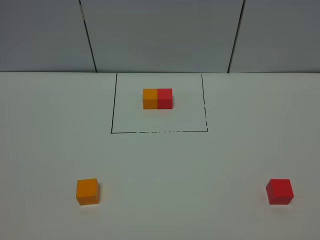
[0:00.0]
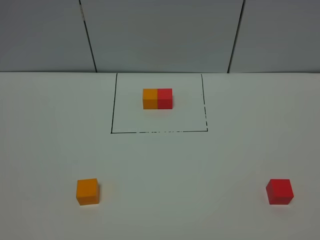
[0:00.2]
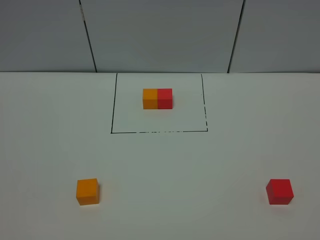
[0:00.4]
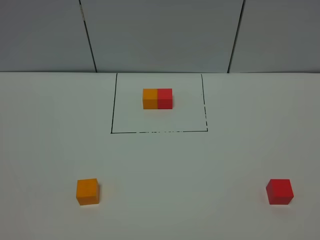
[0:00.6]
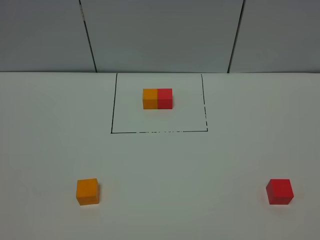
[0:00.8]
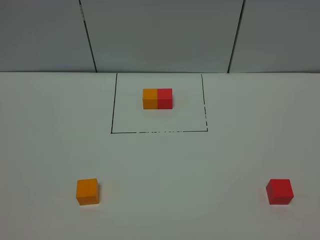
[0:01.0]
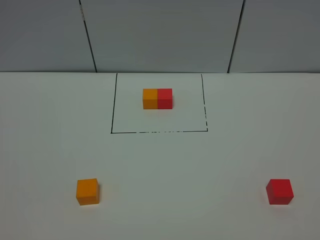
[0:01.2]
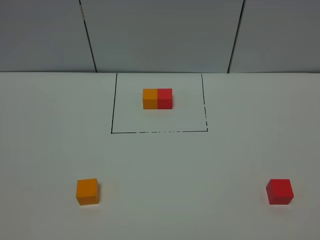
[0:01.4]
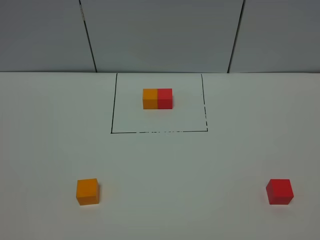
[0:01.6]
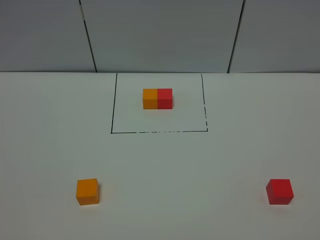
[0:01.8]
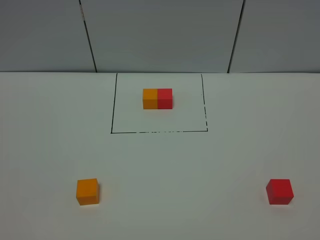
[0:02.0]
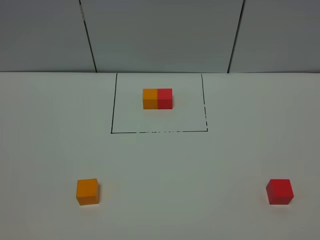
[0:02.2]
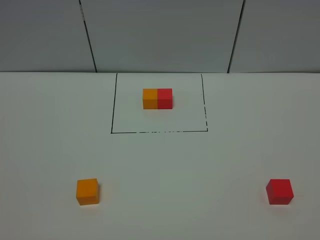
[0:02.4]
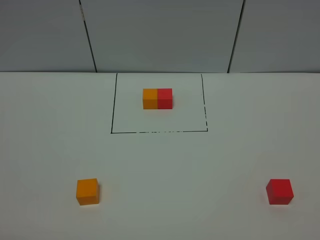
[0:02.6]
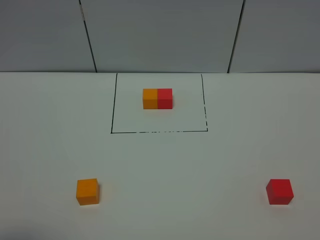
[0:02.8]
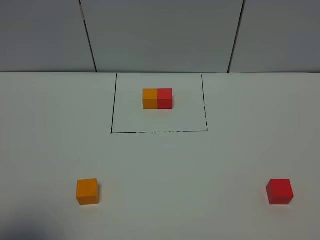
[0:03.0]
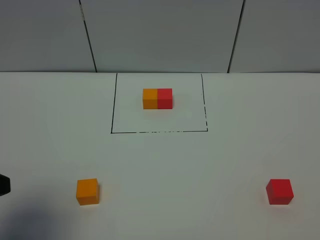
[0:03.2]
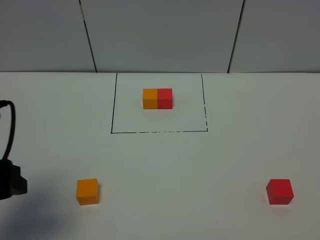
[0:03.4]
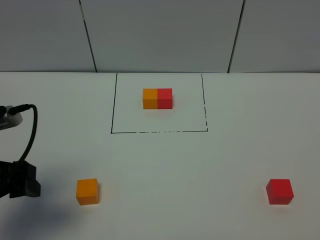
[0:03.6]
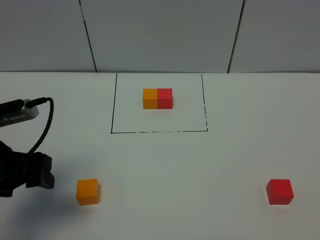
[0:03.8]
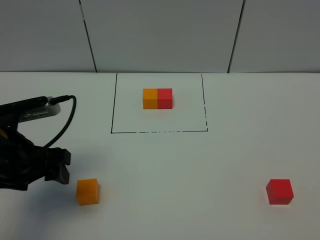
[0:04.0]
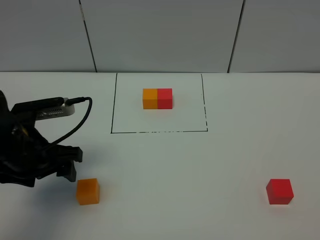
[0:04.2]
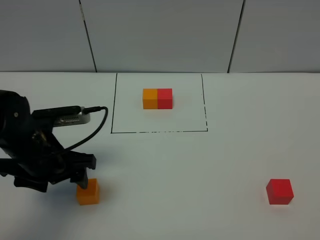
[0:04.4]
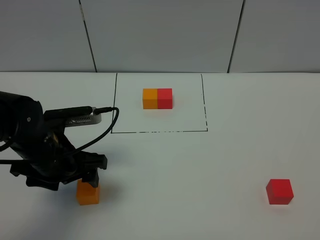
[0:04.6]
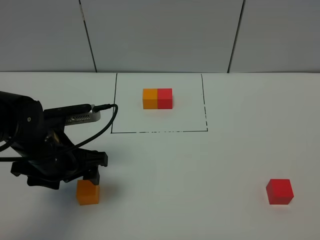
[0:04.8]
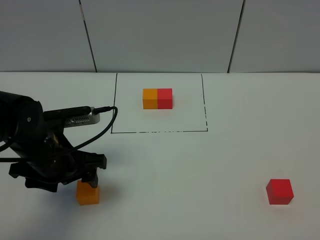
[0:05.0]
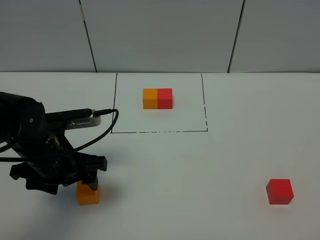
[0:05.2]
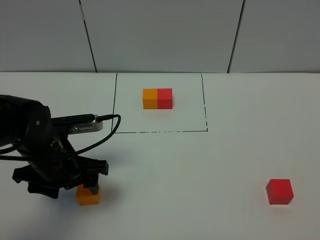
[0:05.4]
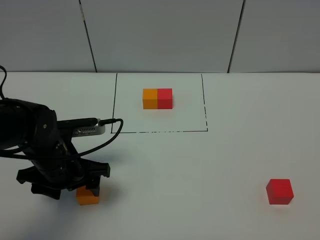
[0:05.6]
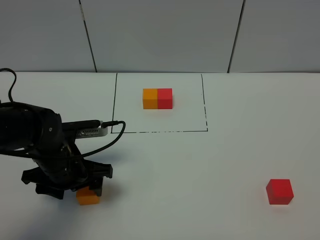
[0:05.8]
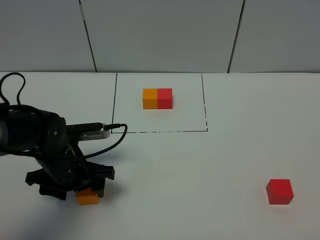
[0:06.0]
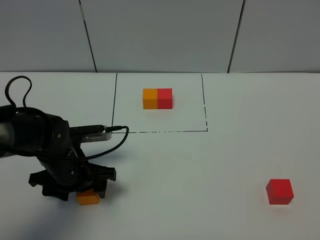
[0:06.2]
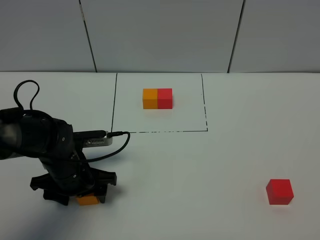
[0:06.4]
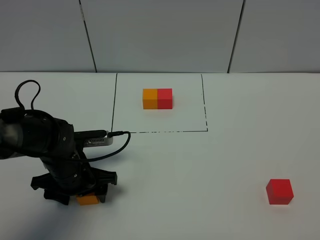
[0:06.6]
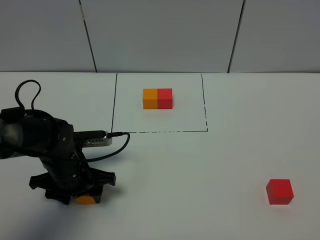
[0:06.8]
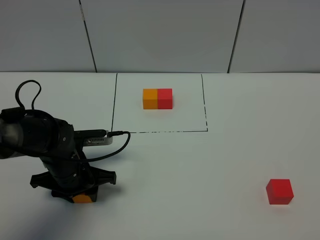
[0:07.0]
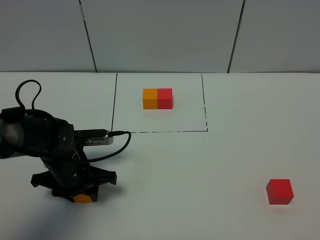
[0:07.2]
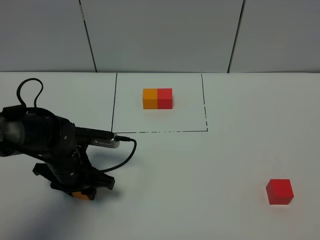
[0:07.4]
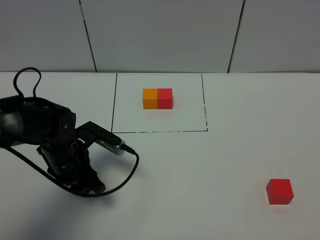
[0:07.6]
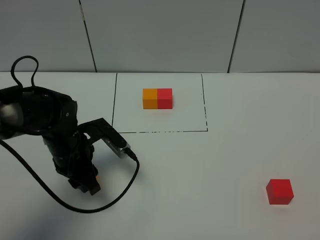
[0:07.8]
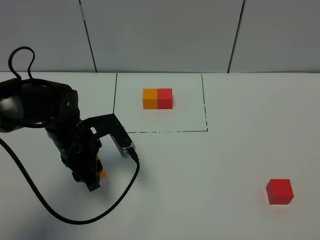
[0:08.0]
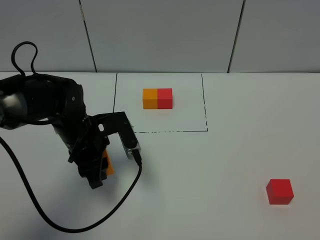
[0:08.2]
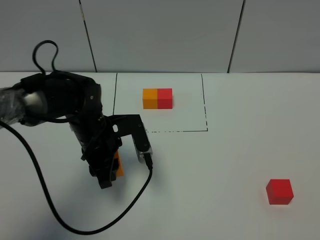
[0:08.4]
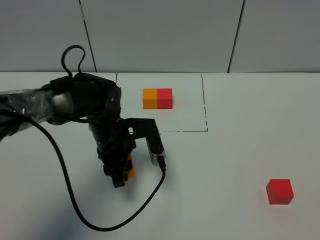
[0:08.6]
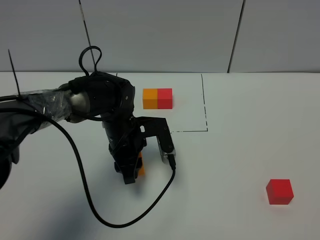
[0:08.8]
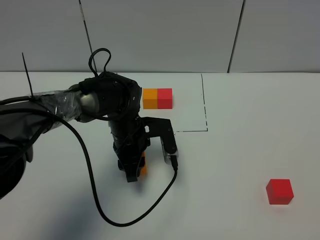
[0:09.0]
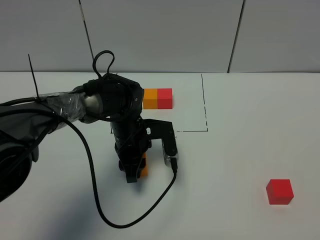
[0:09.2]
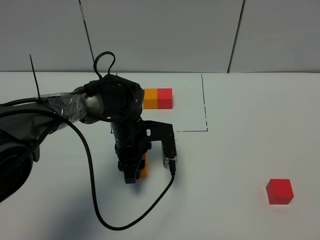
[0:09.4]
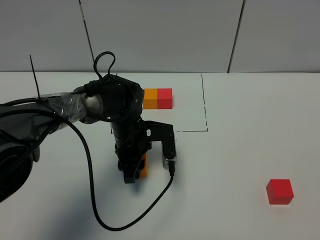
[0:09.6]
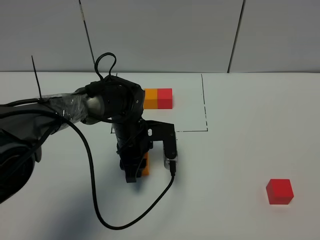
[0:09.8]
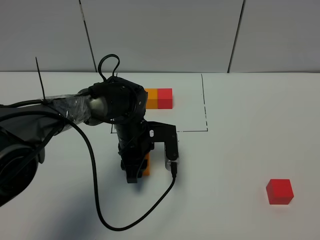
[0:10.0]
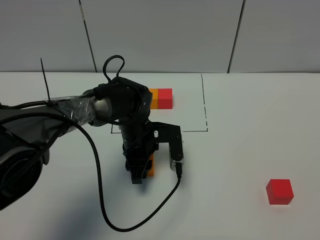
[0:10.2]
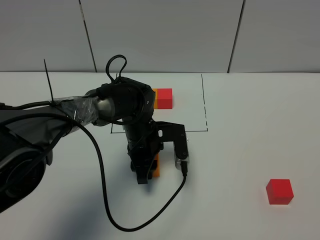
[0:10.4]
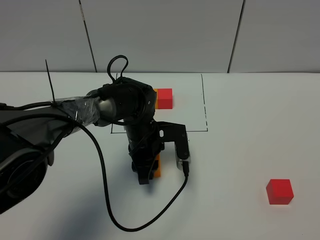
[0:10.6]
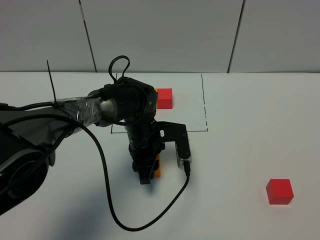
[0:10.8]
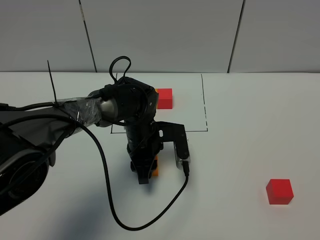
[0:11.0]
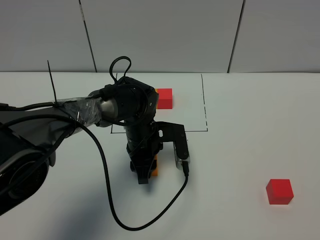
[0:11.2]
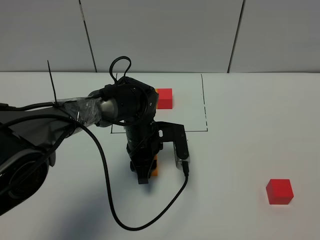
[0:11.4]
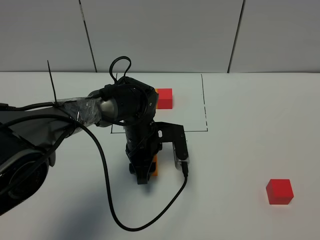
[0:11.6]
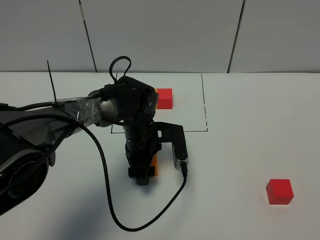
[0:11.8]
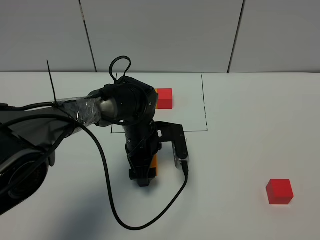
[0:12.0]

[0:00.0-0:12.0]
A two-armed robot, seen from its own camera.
Task of the whole recording: According to the building block template in front, assemble the scattered blocks together.
0:00.0 to 0:01.6: Both grippers stay put.
0:01.6 to 0:03.0: The left gripper goes some 10 cm forward.
0:03.0 to 0:04.4: The left gripper shifts roughly 25 cm forward, downward and to the right.
0:04.4 to 0:06.0: The left gripper heads downward, covering some 5 cm.
0:06.0 to 0:07.6: The left gripper closes its fingers.
0:07.6 to 0:09.0: The left gripper shifts some 10 cm to the right and forward.
0:09.0 to 0:10.4: The grippers stay close to where they were, moving slightly.
0:10.4 to 0:12.0: The left gripper opens its fingers.

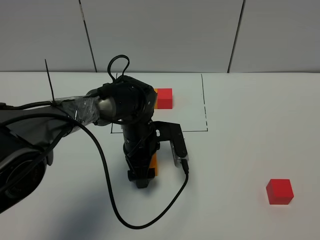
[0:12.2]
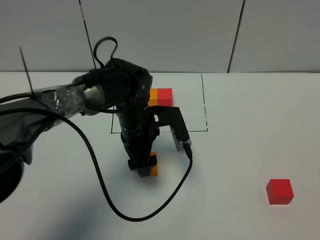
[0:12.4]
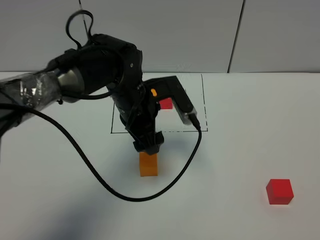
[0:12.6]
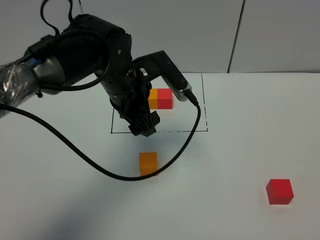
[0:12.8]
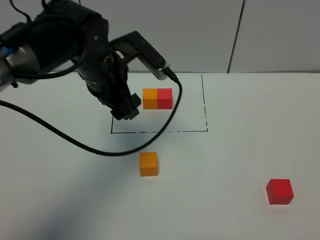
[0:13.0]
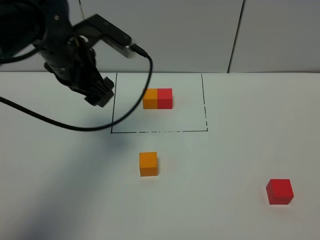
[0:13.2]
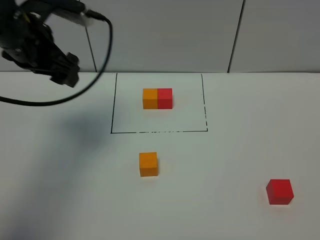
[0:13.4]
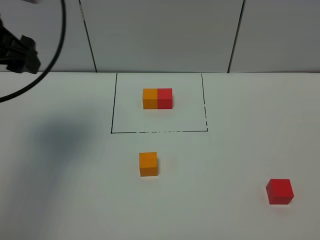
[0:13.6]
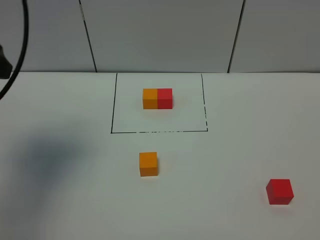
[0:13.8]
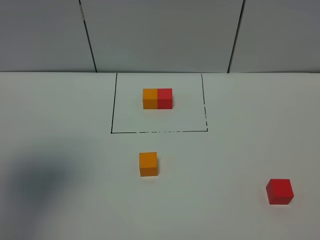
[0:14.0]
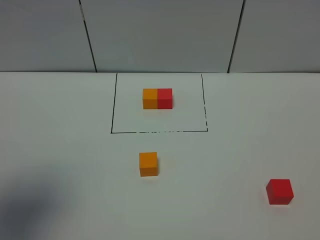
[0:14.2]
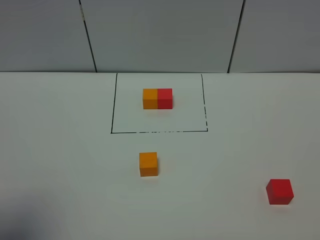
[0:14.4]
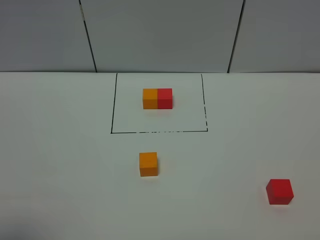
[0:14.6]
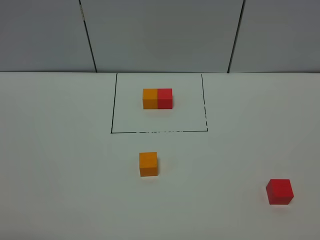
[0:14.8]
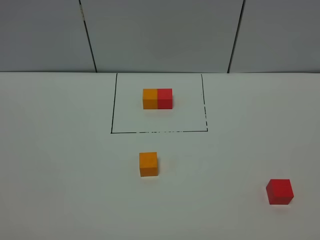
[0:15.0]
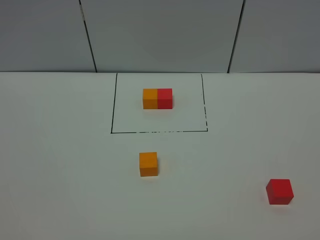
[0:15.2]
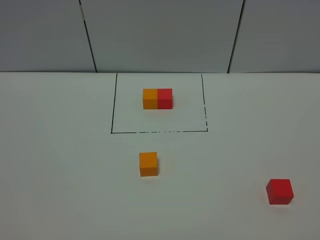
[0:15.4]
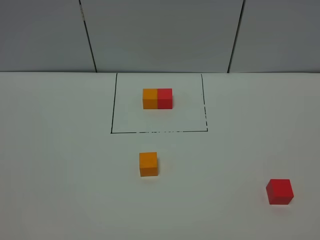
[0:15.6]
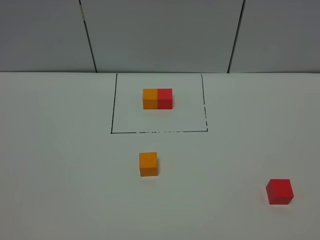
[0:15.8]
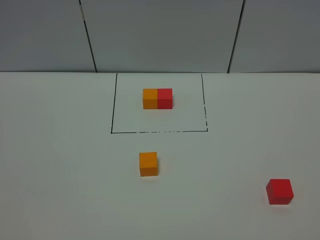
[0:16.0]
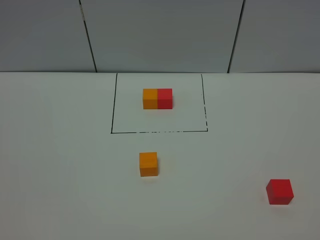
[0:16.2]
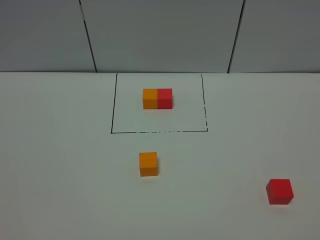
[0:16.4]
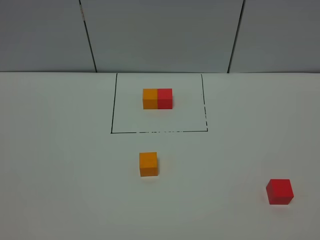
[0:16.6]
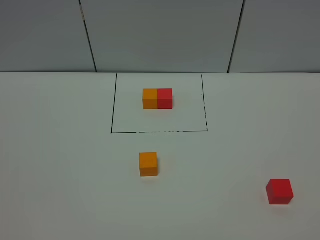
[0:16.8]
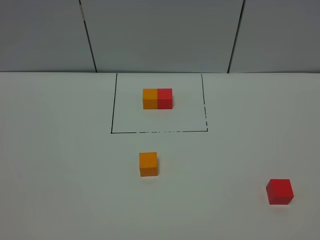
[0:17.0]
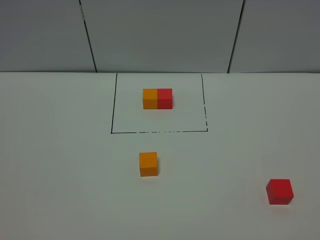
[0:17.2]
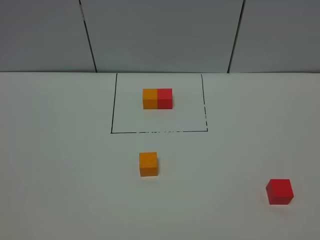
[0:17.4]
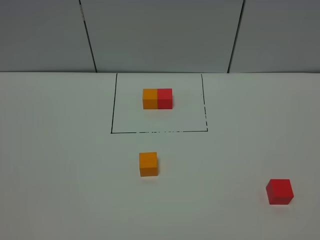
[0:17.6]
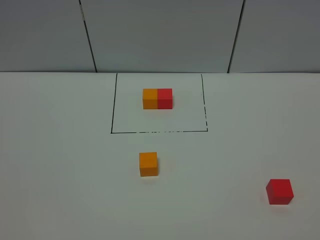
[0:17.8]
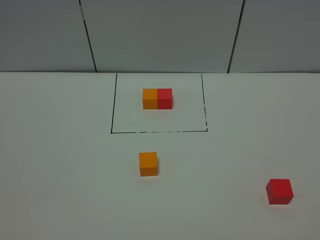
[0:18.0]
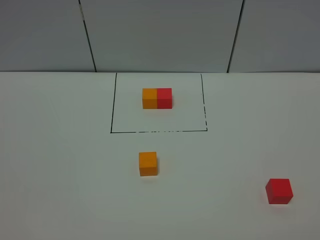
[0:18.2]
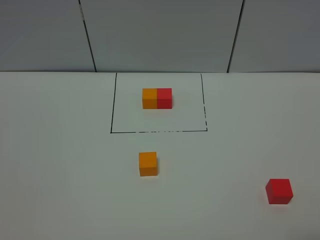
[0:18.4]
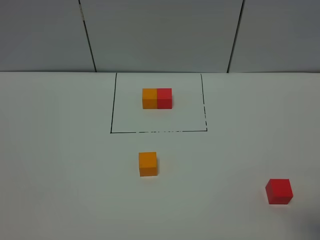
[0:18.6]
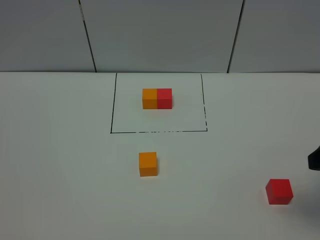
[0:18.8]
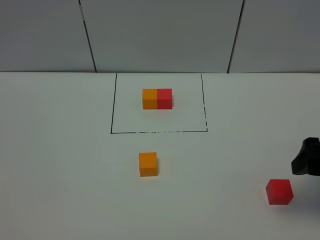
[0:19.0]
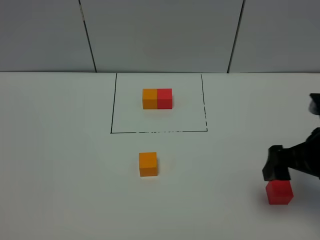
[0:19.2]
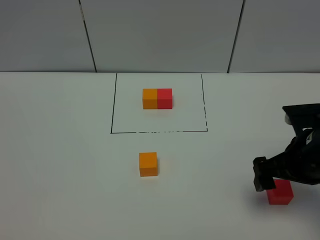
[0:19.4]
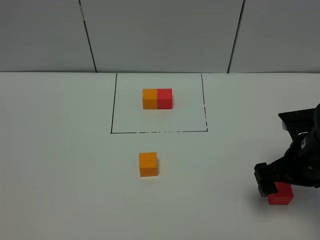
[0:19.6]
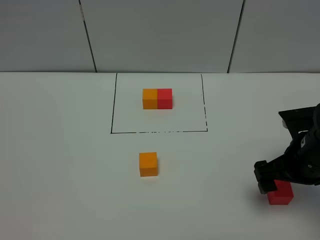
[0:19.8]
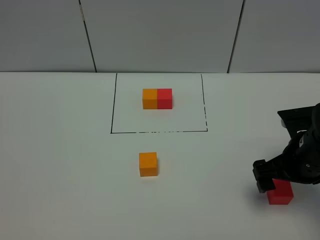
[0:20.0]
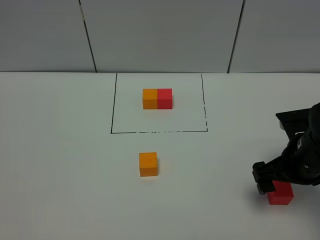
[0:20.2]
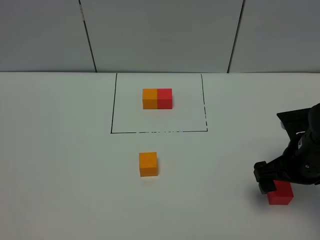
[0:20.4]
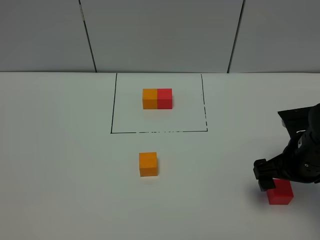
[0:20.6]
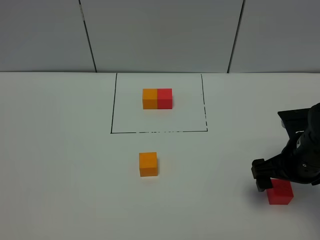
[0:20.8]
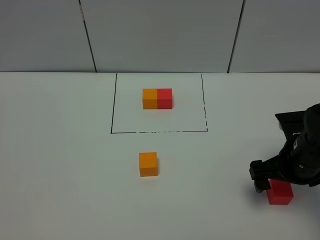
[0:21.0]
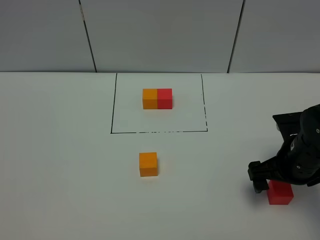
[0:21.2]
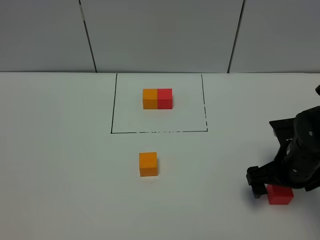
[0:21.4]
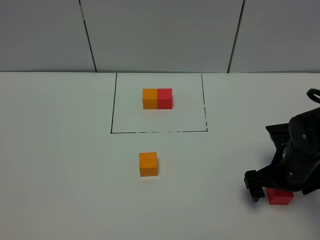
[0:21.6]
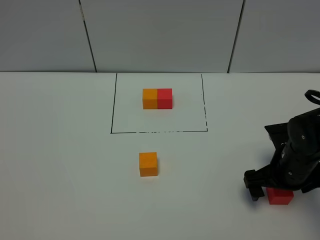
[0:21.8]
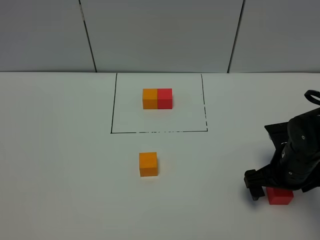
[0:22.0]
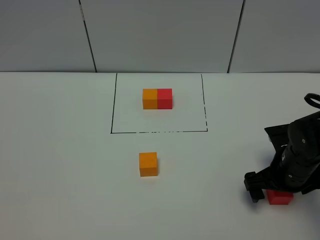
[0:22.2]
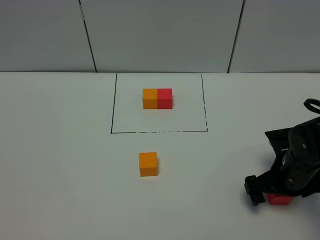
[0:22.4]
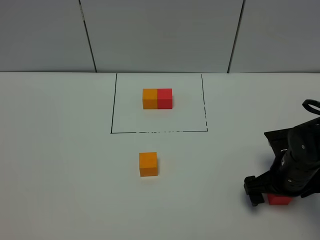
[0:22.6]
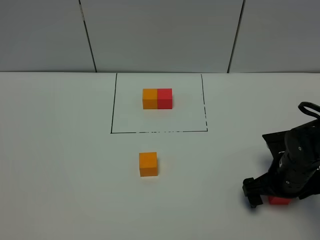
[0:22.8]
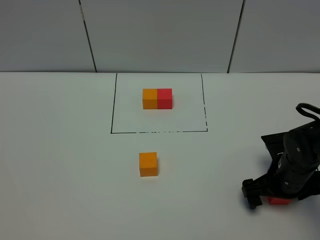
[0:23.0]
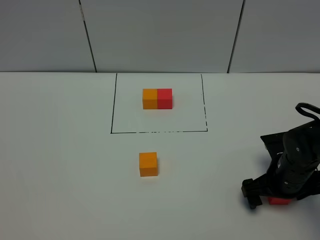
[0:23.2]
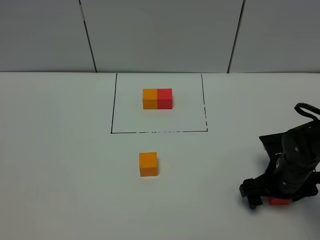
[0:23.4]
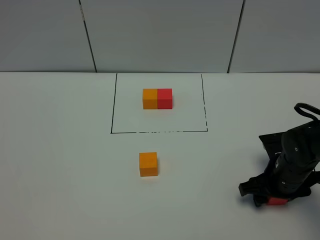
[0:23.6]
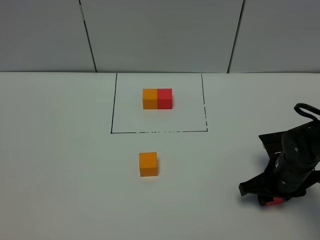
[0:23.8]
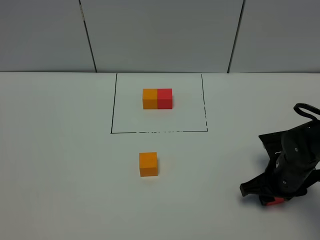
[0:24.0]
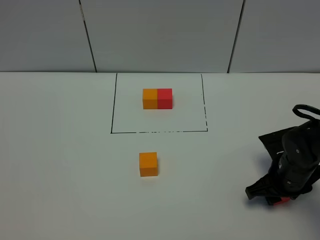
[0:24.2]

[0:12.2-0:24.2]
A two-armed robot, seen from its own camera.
Task of the whole recording: According to the building block template in front, assemble the scattered blocks together.
0:12.2 to 0:13.8: The left gripper is displaced upward and to the left by some 35 cm.
0:13.8 to 0:15.2: The left gripper shifts about 25 cm backward.
0:18.2 to 0:19.8: The right gripper shifts about 25 cm forward.
0:19.8 to 0:21.2: There are only small adjustments of the grippers.
0:21.2 to 0:22.6: The grippers stay close to where they were, moving slightly.
0:22.6 to 0:24.2: The right gripper closes its fingers.
